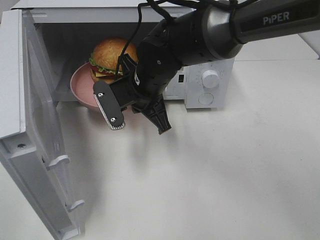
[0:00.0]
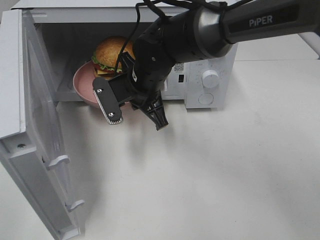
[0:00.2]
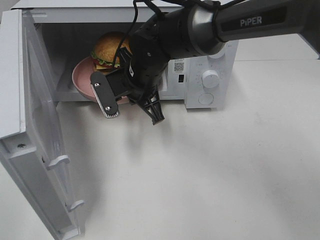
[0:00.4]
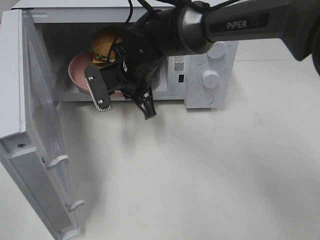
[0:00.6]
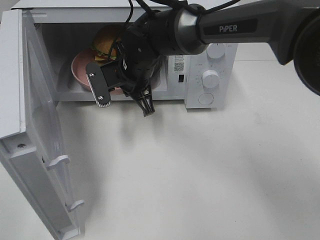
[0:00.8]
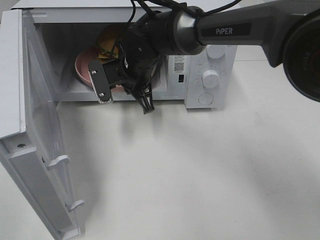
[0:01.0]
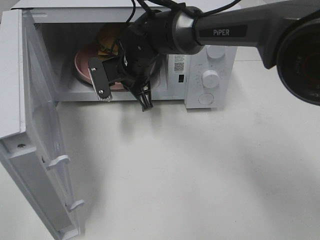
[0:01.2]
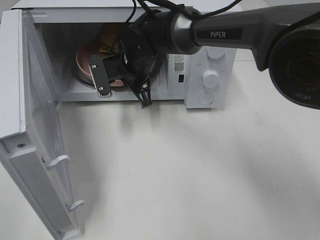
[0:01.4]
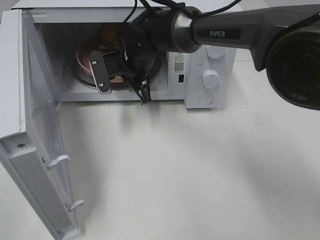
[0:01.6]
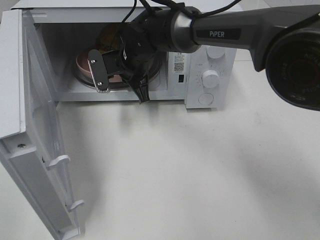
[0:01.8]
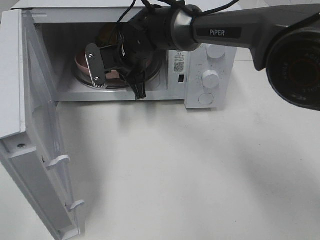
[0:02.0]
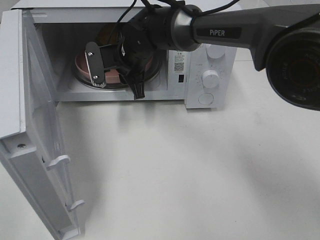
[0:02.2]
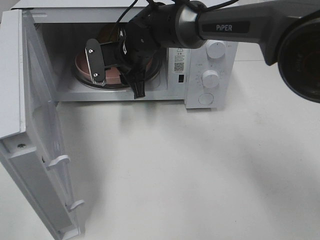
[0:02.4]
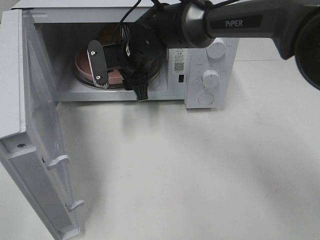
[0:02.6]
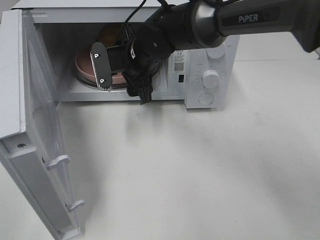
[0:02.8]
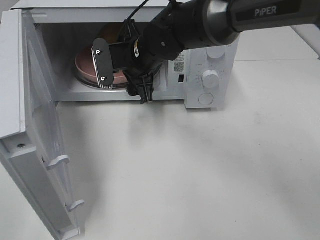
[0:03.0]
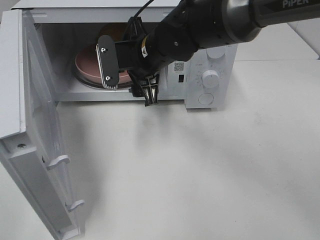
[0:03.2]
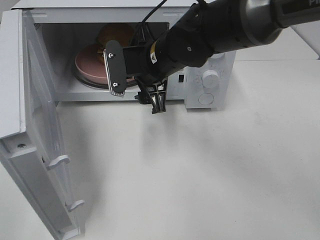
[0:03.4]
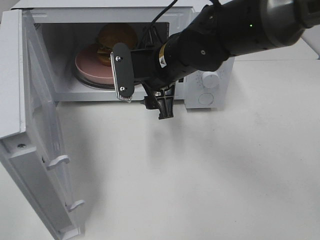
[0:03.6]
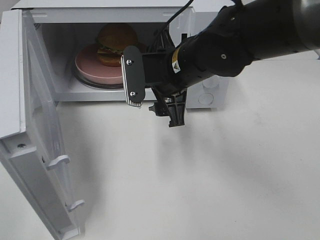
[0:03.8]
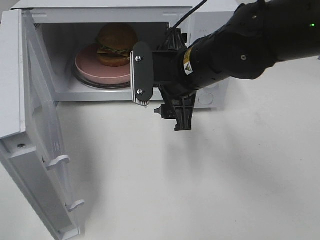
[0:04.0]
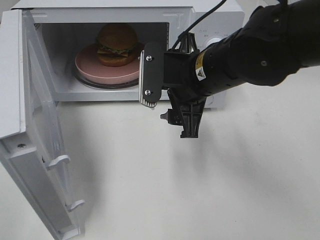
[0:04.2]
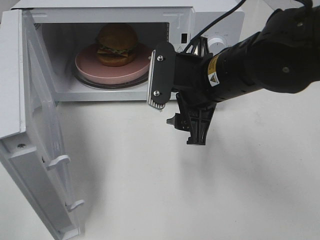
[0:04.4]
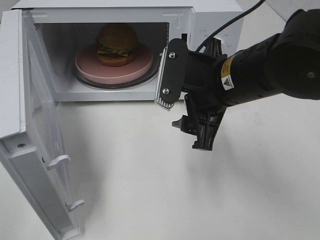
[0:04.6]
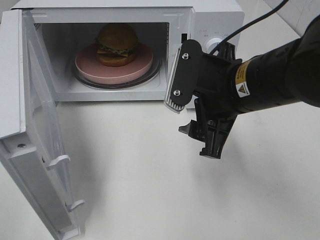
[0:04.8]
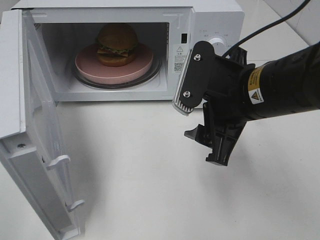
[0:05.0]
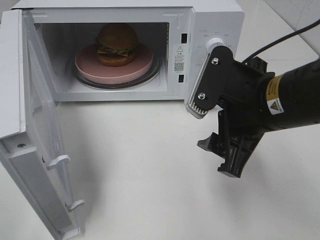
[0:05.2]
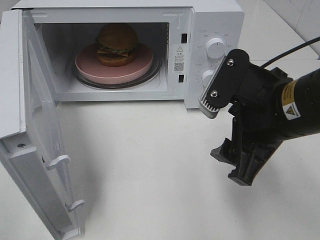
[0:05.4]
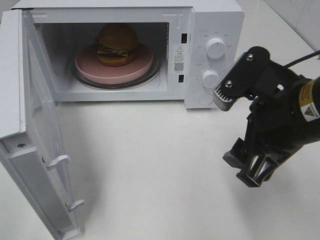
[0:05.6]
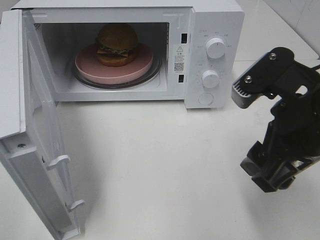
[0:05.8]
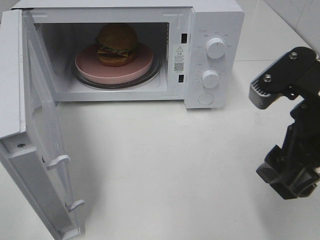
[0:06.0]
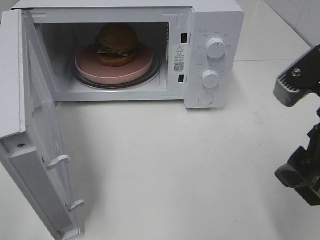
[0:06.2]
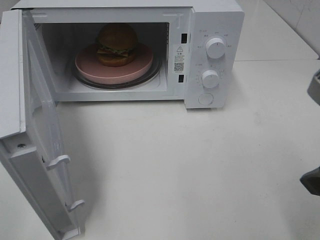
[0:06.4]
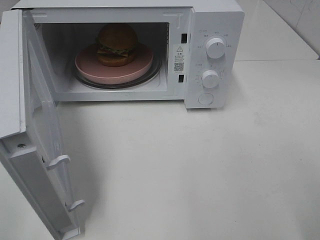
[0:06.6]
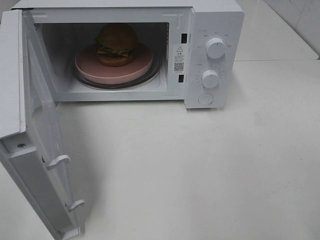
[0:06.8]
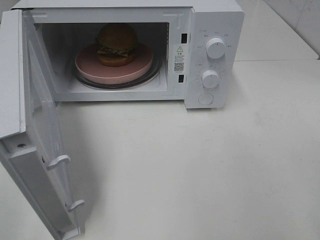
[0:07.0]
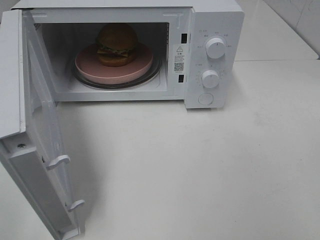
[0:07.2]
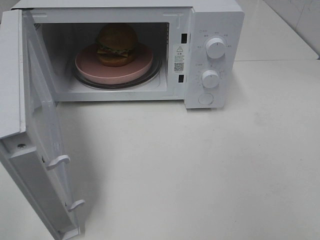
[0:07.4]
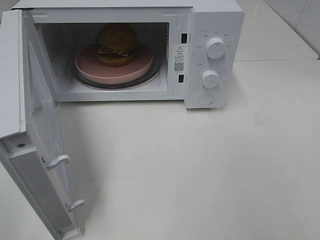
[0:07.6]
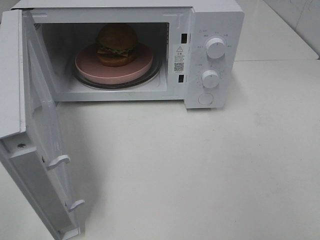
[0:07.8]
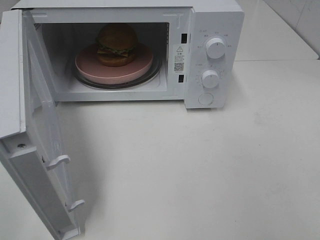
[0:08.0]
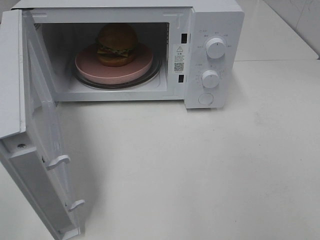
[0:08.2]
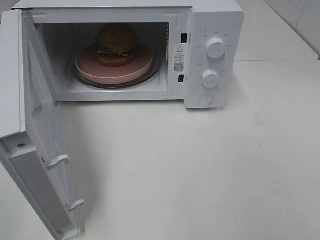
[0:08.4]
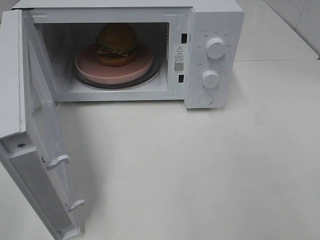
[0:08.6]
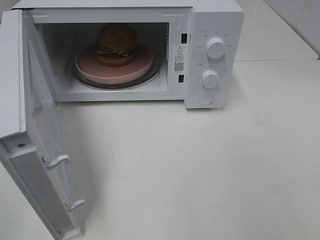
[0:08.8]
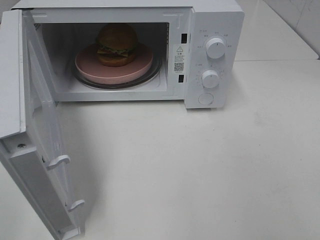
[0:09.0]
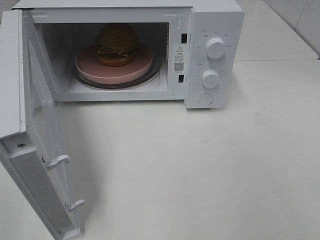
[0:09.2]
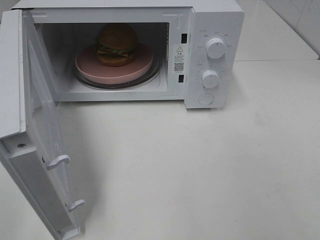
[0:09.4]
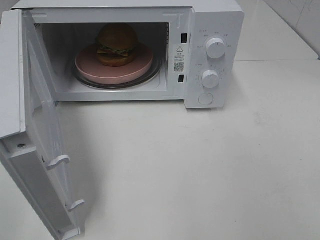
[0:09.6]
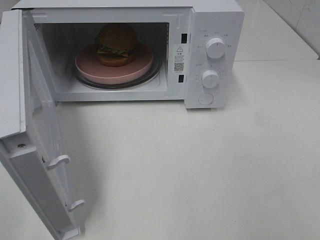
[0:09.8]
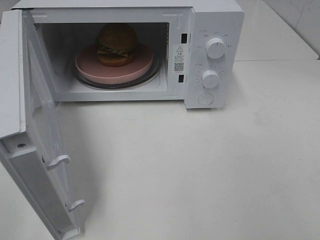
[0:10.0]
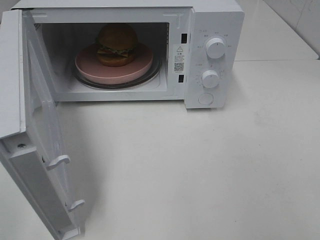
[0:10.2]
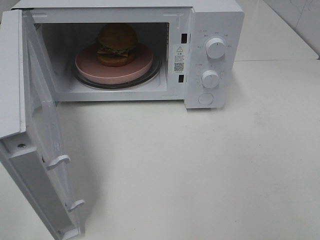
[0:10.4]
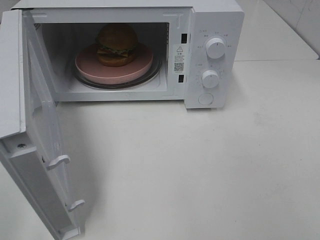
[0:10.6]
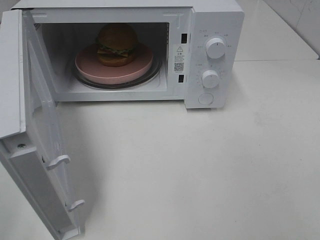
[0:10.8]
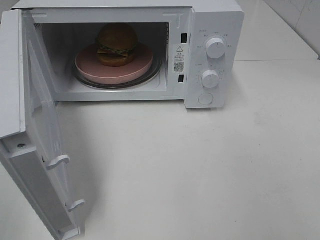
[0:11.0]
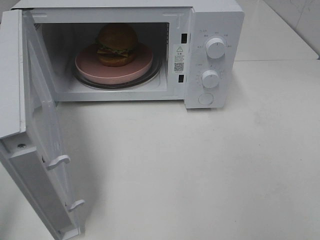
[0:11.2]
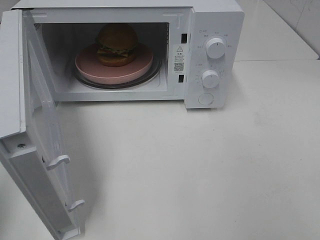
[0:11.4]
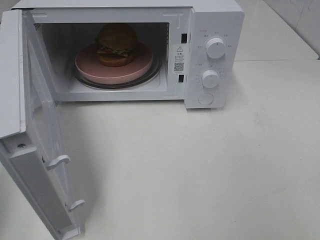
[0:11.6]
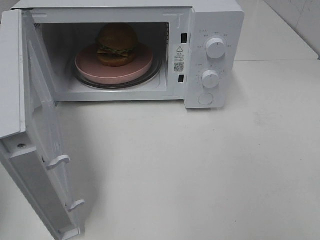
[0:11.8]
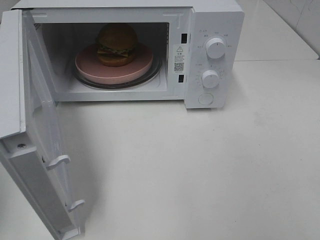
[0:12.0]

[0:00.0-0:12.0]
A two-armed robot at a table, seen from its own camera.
Task of the whole recording: Heat the burger.
Step, 0:00.0 to 0:02.4: Right hand: place the plate in the microwave.
0:00.0 to 0:01.6: The right gripper moves forward, roughly 10 cm.
0:01.6 to 0:03.0: The right gripper moves roughly 5 cm, and opens up.
0:03.0 to 0:04.4: The right gripper moves backward and to the right, approximately 15 cm.
0:04.4 to 0:06.0: The right gripper travels backward and to the right by about 15 cm.
0:06.0 to 0:07.6: The right gripper goes about 15 cm backward, to the right and upward.
0:09.0 to 0:10.4: The two grippers keep their place.

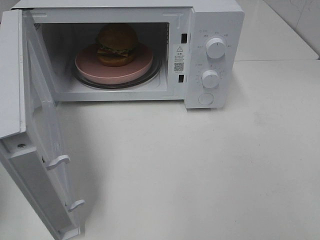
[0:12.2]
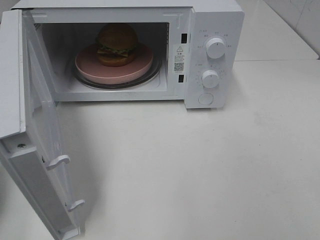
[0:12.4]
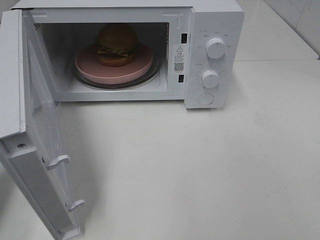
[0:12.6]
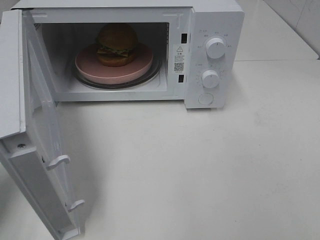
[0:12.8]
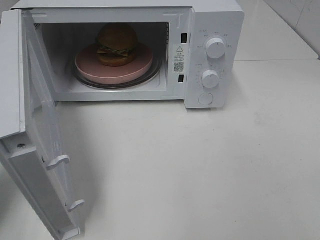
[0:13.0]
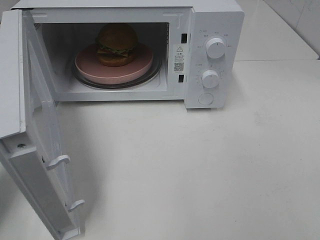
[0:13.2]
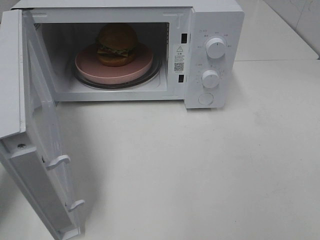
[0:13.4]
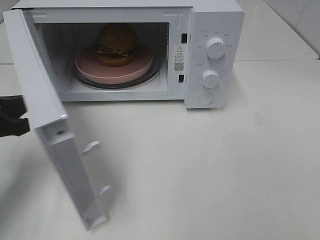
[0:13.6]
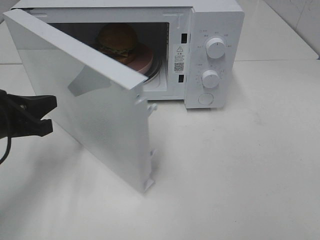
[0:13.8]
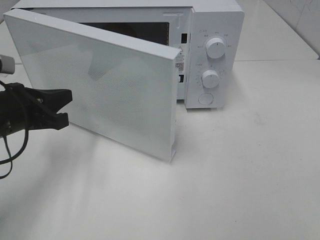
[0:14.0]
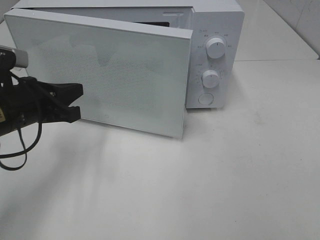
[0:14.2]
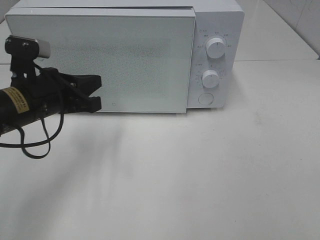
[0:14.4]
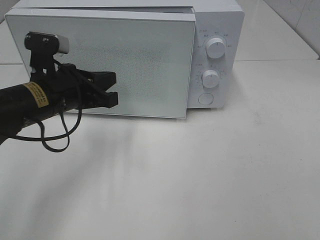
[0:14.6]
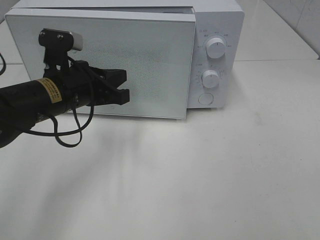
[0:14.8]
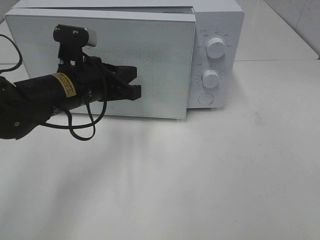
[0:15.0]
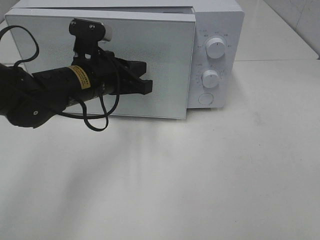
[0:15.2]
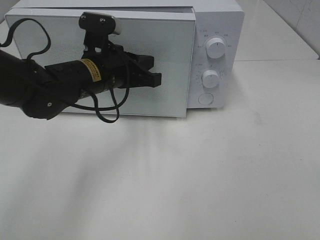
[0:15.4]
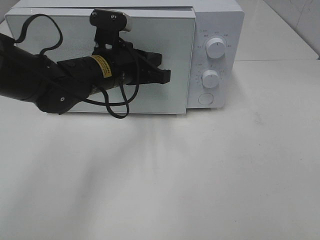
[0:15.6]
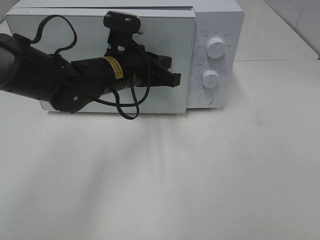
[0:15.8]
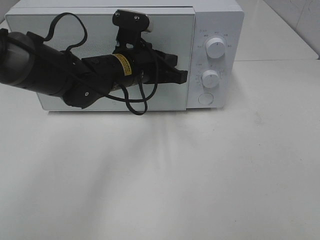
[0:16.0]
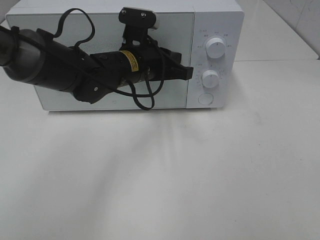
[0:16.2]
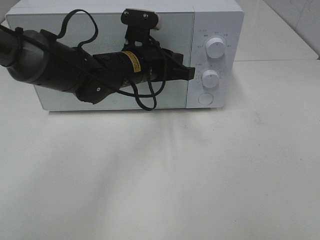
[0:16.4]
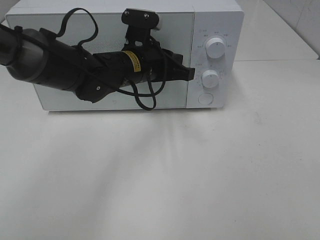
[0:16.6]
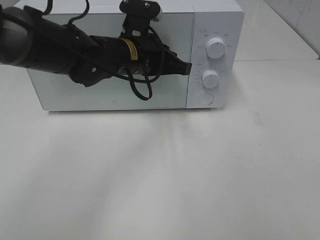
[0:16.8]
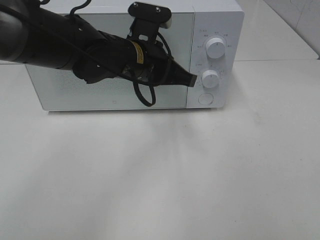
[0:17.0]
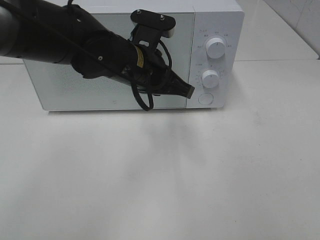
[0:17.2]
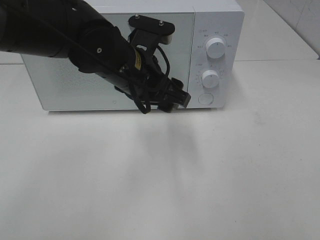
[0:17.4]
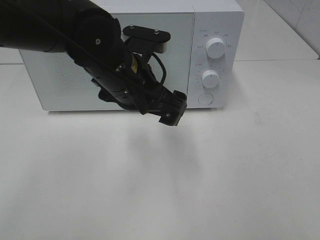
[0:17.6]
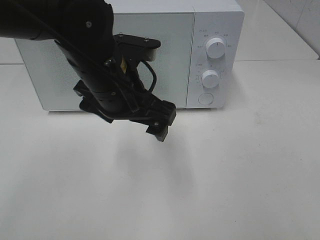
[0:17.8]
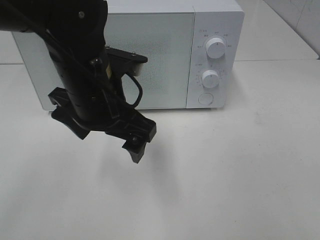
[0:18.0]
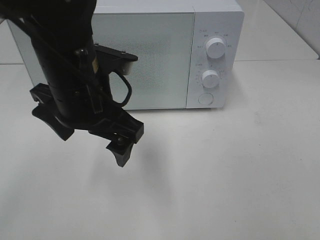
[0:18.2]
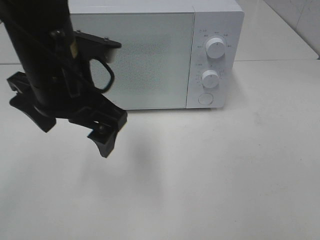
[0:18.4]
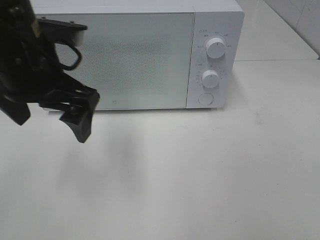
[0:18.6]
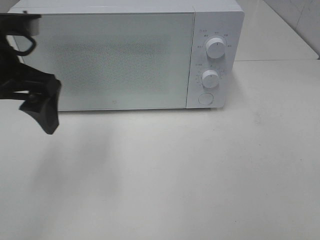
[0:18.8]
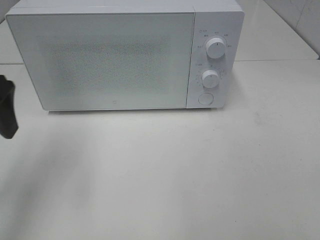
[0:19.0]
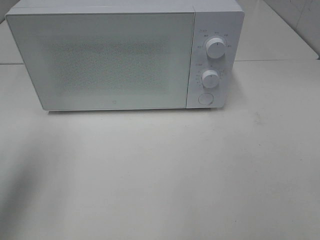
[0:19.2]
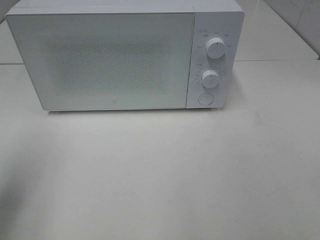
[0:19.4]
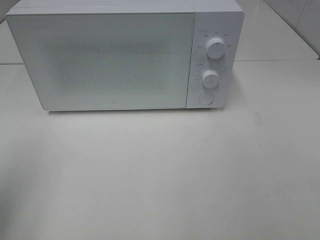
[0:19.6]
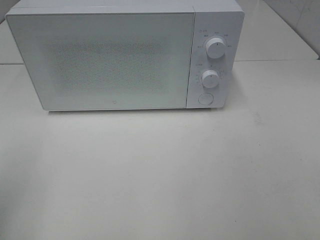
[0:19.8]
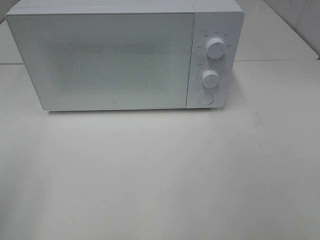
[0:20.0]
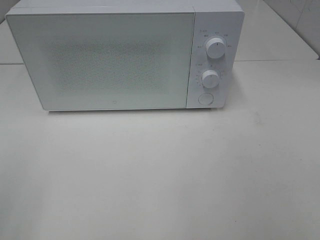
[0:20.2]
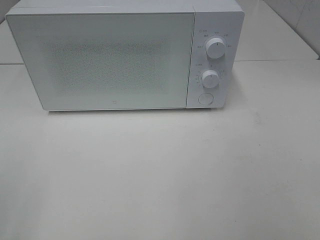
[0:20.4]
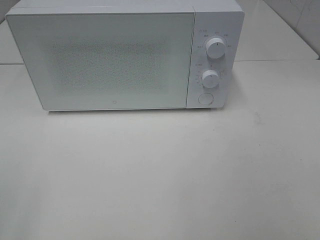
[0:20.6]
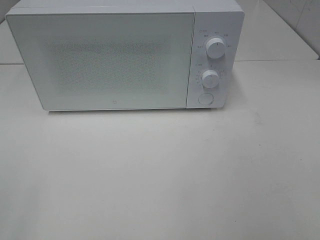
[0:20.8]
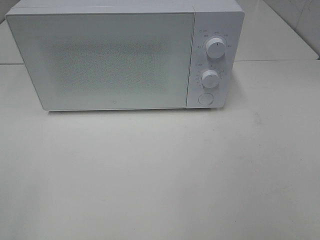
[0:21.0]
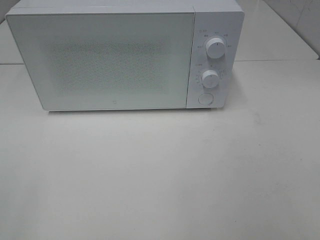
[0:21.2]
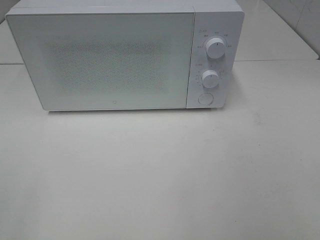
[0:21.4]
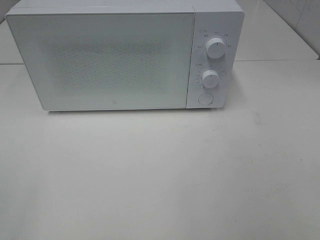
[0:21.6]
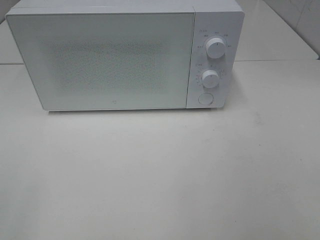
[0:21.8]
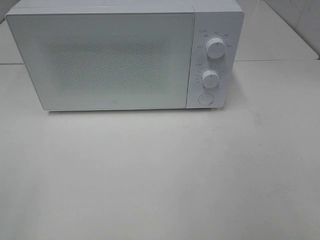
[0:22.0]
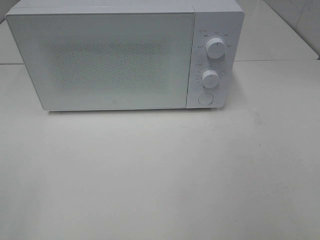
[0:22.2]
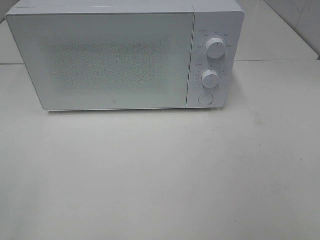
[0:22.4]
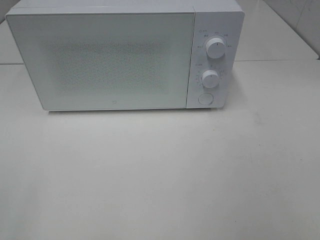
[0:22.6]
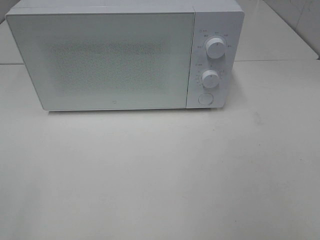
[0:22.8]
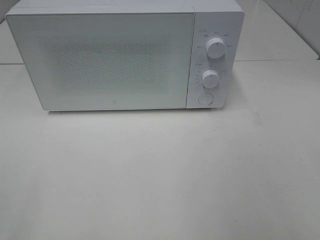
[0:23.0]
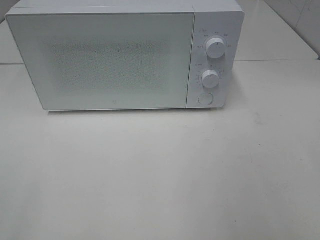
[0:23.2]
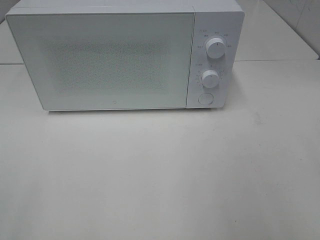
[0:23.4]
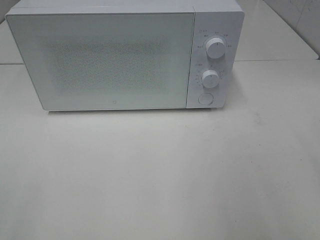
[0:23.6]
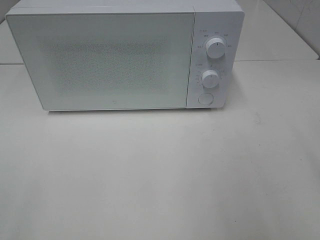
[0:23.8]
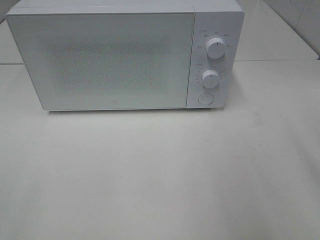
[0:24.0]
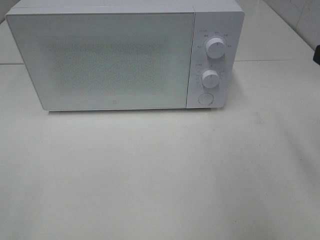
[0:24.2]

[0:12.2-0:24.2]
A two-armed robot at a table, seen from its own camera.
Task of the whole recording: Heat the burger.
Step, 0:12.2 to 0:16.8: Left hand: close the microwave door.
0:12.2 to 0:13.8: The left gripper shifts approximately 15 cm forward, to the right and downward.
0:13.8 to 0:15.2: The left gripper heads to the right and forward, covering approximately 15 cm.
0:15.2 to 0:16.6: The left gripper is displaced to the right by some 5 cm.
0:16.6 to 0:18.2: The left gripper travels backward and upward by roughly 15 cm, and opens up.
0:18.2 to 0:19.8: The left gripper heads to the left and backward, covering roughly 30 cm.
